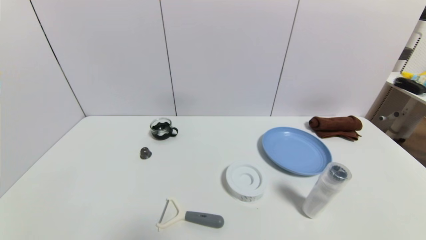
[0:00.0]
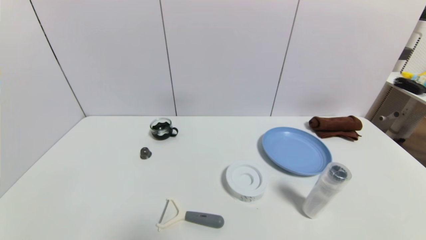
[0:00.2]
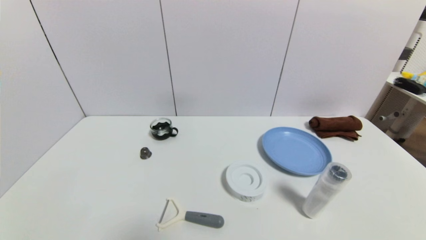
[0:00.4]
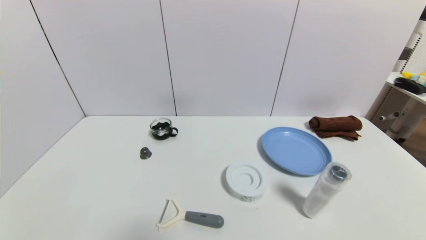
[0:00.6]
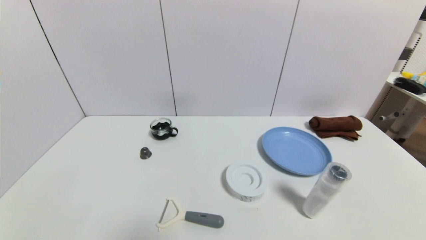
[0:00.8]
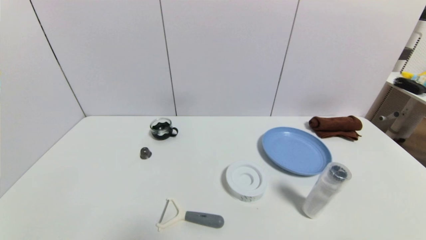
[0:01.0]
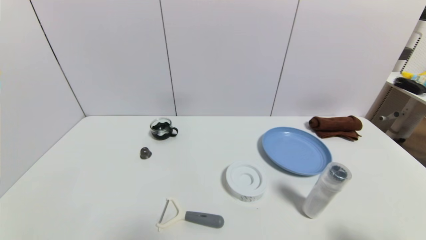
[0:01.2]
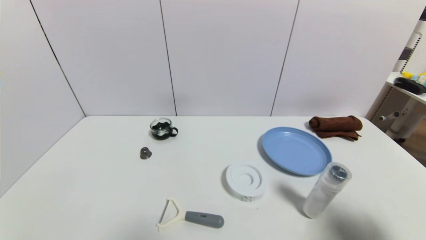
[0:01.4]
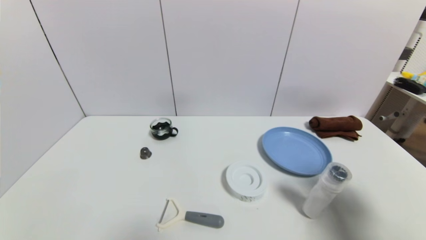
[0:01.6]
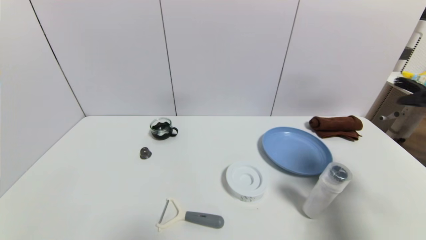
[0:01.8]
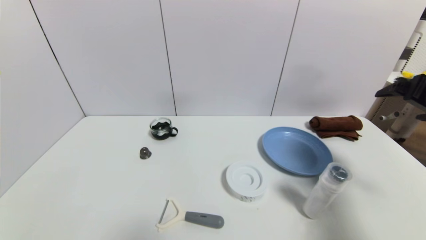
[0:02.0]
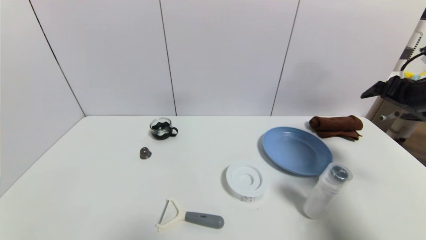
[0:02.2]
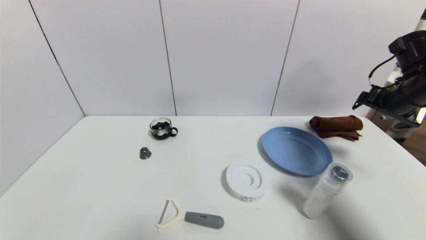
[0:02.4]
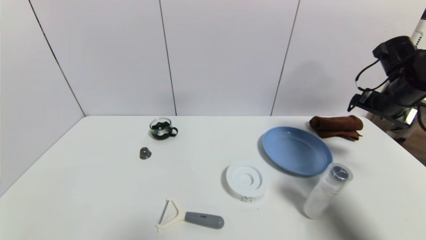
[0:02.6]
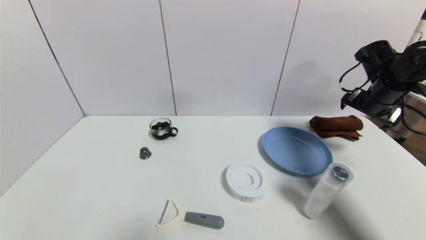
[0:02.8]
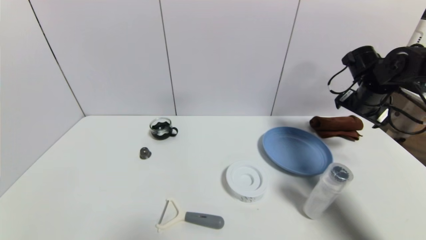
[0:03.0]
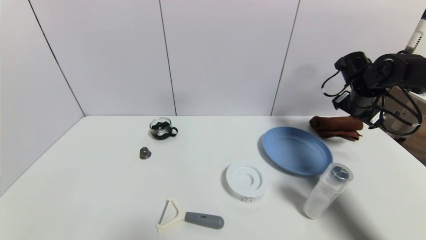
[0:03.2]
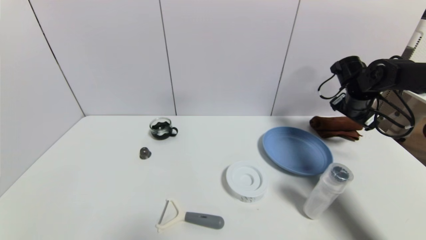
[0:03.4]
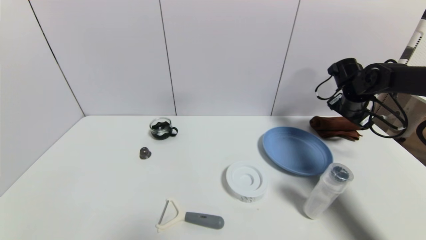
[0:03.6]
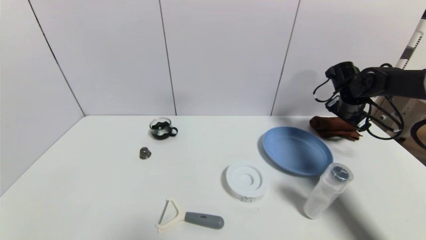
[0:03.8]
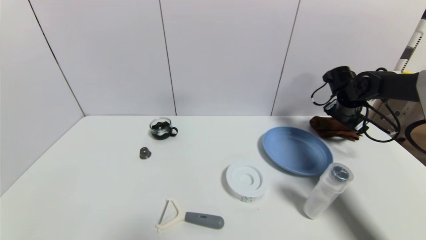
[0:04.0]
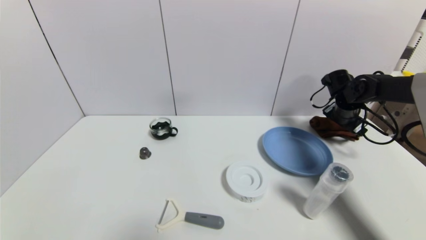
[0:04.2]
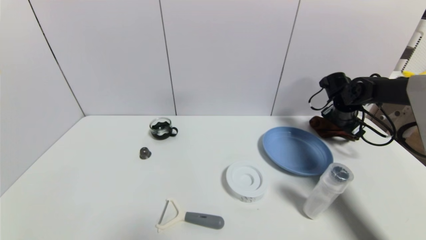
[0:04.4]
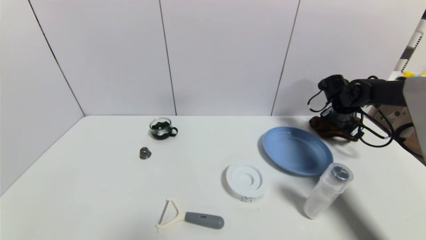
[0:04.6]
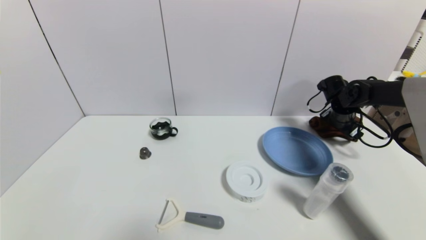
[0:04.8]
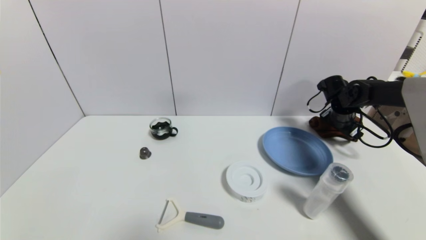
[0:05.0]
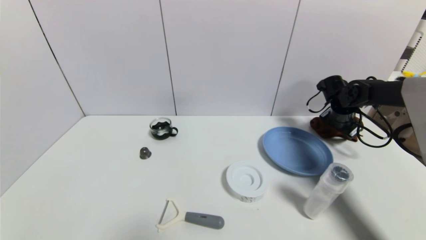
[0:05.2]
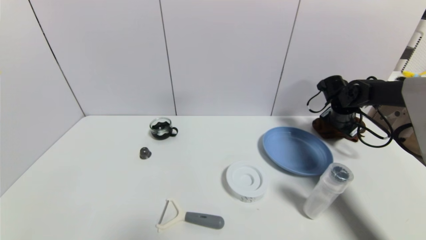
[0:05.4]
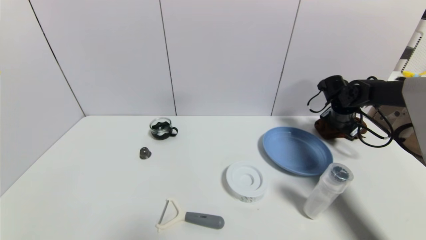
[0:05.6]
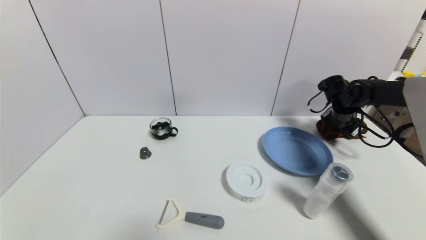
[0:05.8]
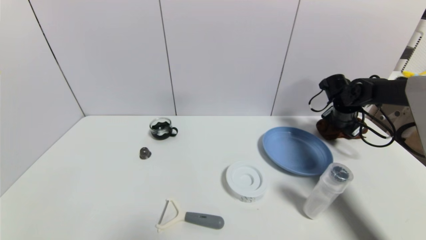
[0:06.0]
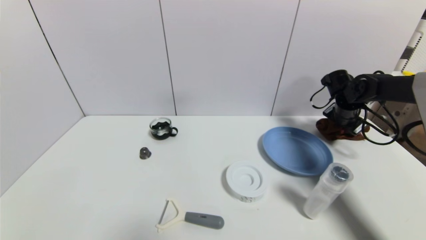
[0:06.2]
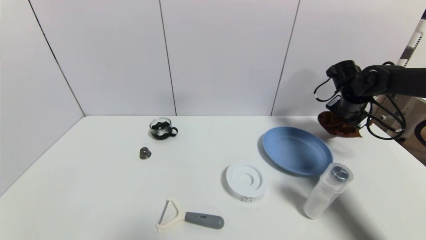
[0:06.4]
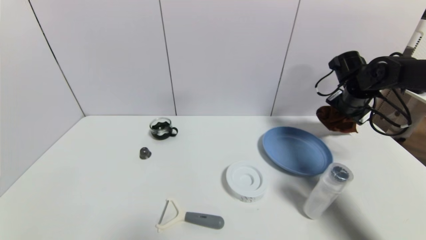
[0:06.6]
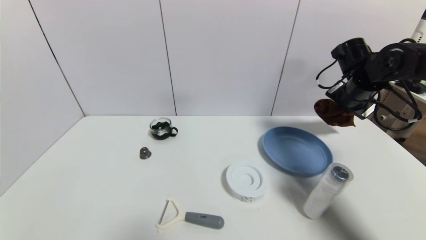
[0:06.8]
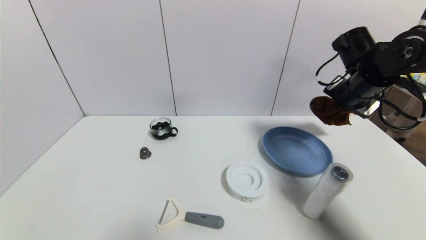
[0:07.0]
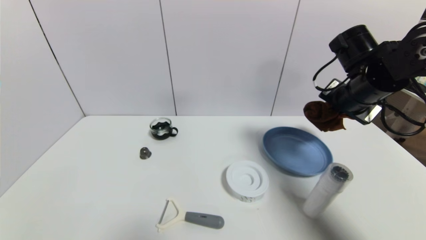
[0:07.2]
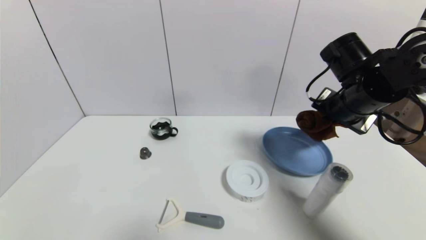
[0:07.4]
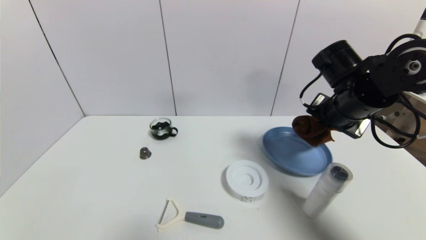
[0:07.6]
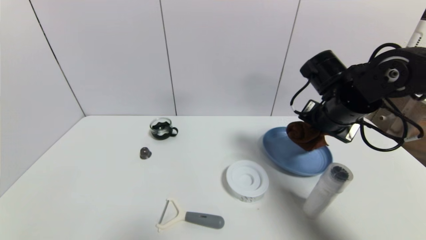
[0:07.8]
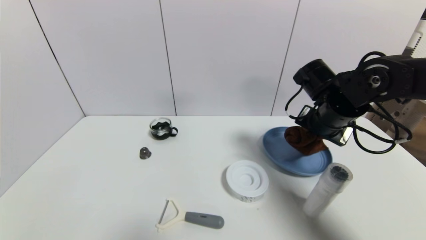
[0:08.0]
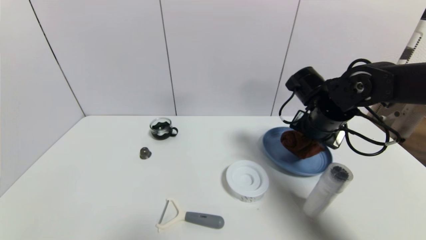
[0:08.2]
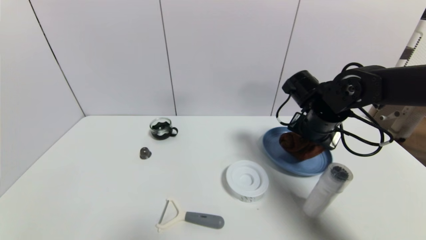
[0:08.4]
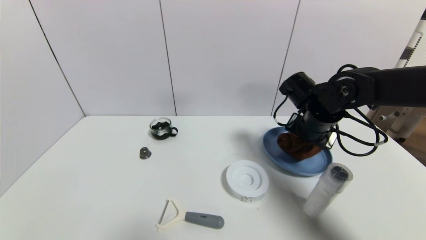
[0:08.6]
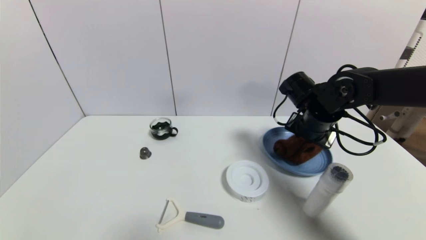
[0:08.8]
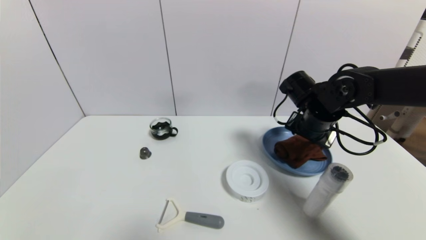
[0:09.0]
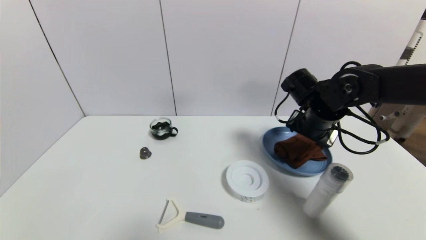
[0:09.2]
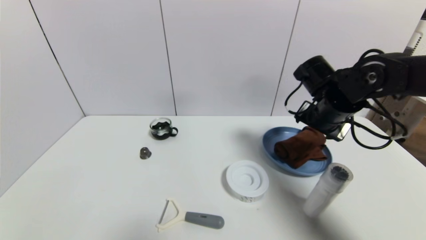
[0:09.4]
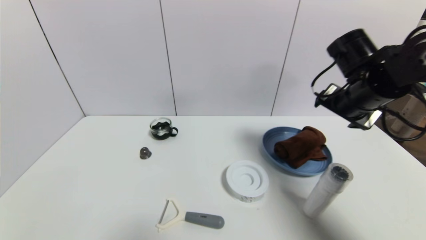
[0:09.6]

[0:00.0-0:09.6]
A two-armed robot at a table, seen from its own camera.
Task of the whole recording: use a gripper to pick the target object and place on the blue plate.
Step, 0:00.0 to 0:05.8: Grasp the brown towel with the right gripper.
0:00.0 to 0:01.6: The right gripper travels upward and forward by roughly 25 cm.
0:01.6 to 0:03.2: The right gripper heads forward, covering approximately 30 cm.
0:03.2 to 0:04.8: The right gripper heads downward, covering roughly 5 cm.
0:04.8 to 0:06.4: The right gripper goes some 5 cm upward, and closes its fingers.
0:06.4 to 0:08.0: The right gripper heads to the left and backward, covering roughly 15 cm.
0:08.0 to 0:09.6: The right gripper heads upward, covering some 5 cm, and opens.

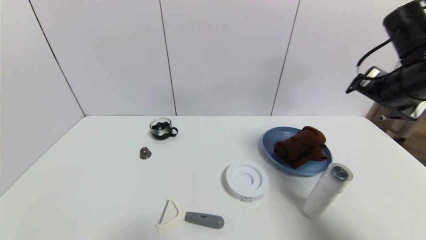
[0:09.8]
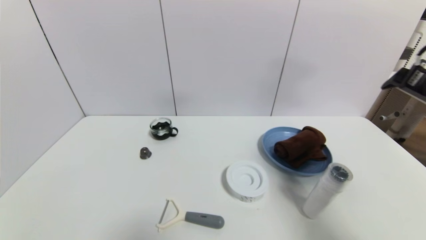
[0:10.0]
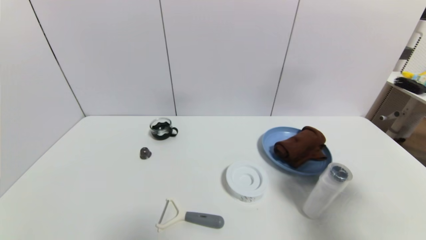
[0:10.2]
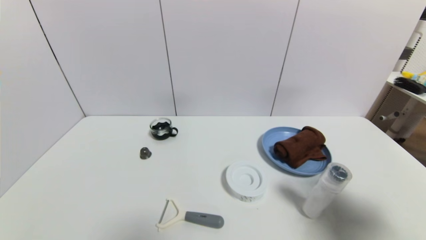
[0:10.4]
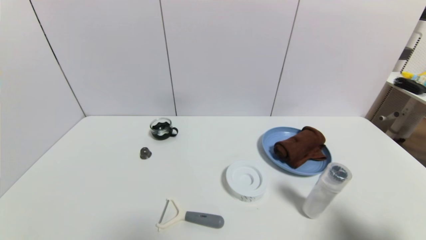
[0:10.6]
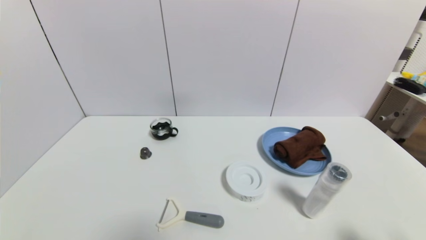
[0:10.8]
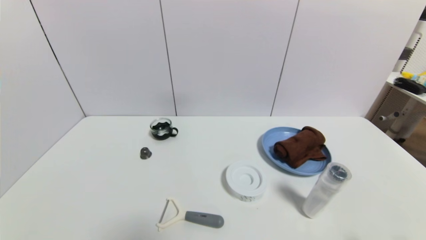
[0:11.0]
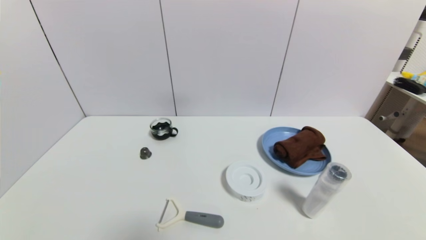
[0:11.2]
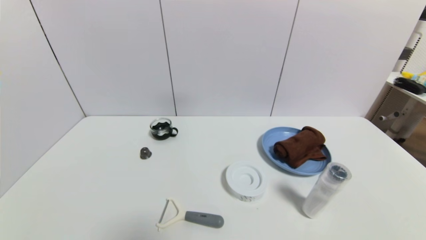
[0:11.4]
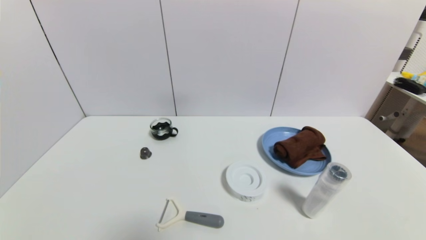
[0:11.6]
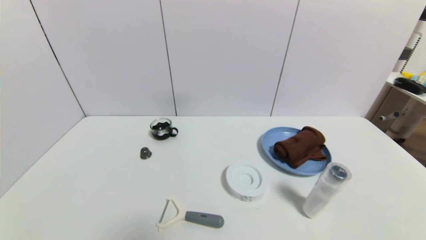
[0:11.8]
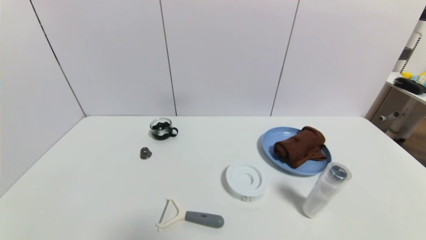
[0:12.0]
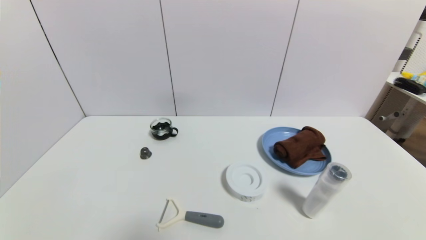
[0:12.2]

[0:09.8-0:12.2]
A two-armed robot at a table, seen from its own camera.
Task of the whole recording: use a gripper to pick the target object and place on the blue plate.
0:09.8 to 0:11.0: The right gripper is displaced backward and downward by approximately 30 cm.

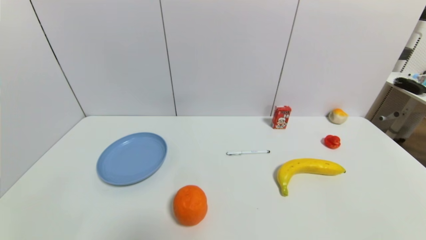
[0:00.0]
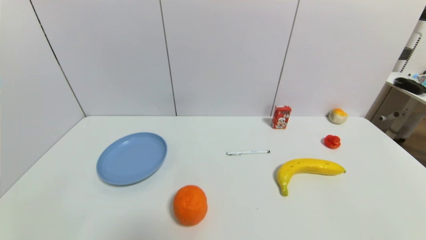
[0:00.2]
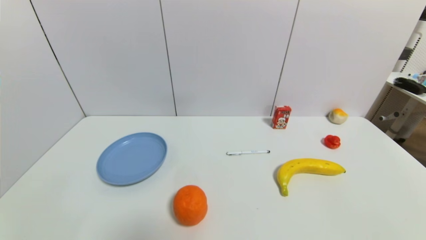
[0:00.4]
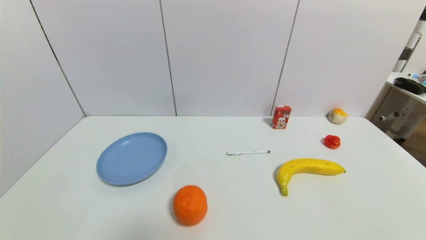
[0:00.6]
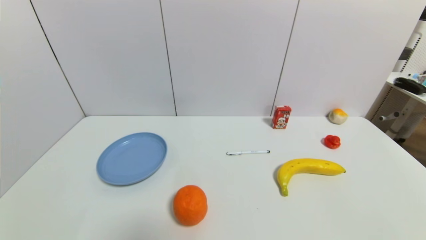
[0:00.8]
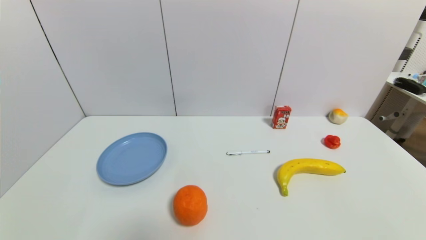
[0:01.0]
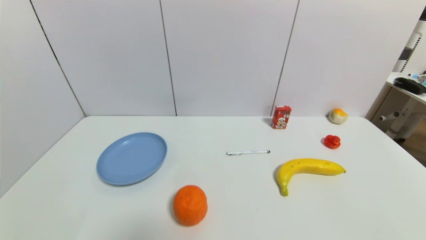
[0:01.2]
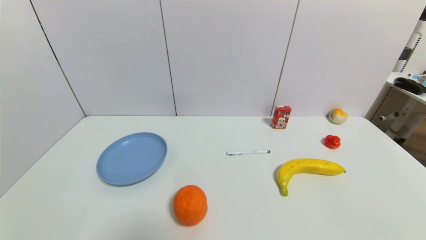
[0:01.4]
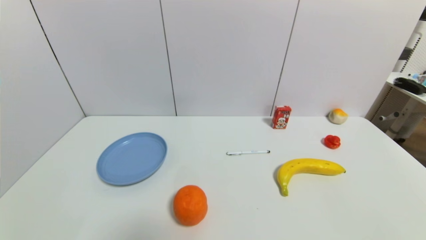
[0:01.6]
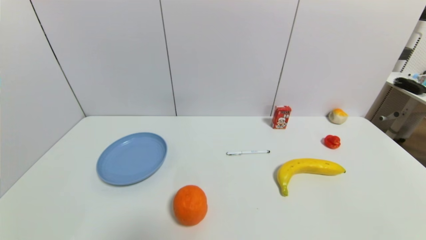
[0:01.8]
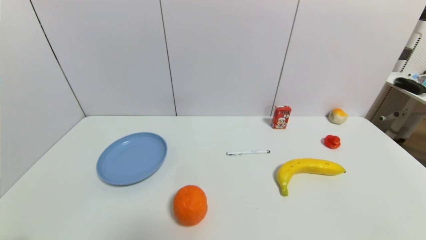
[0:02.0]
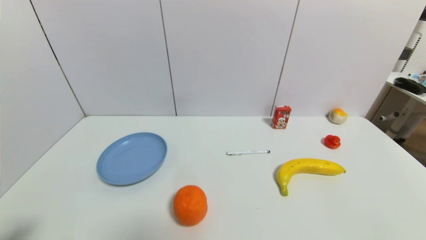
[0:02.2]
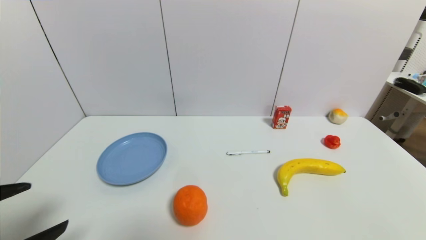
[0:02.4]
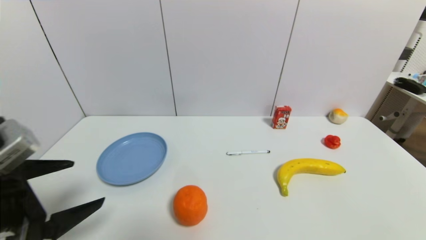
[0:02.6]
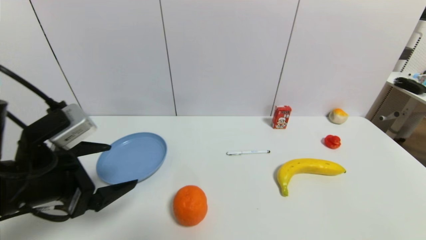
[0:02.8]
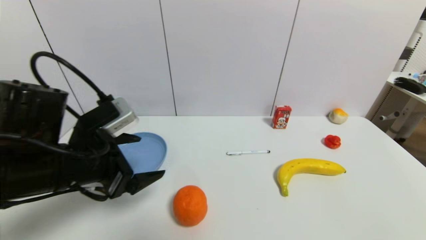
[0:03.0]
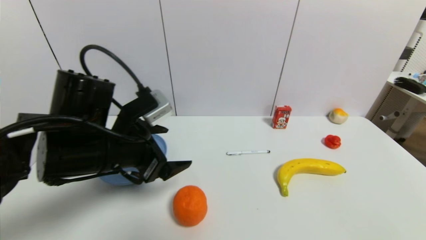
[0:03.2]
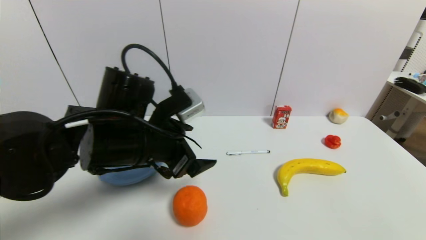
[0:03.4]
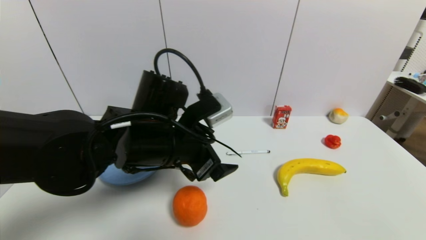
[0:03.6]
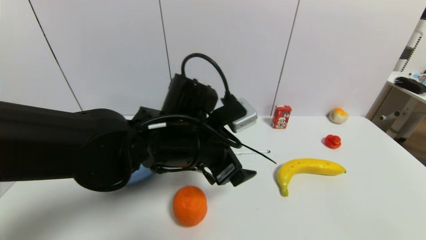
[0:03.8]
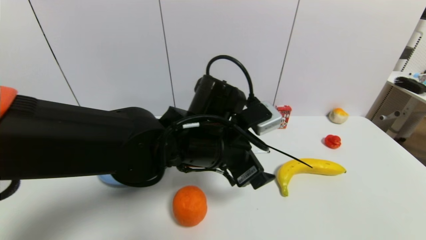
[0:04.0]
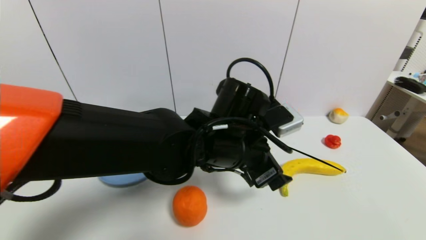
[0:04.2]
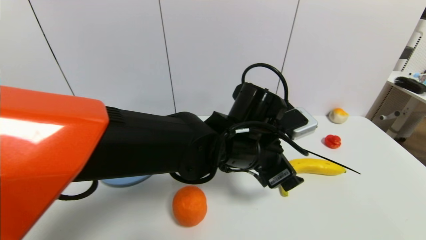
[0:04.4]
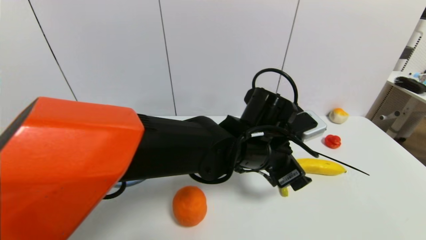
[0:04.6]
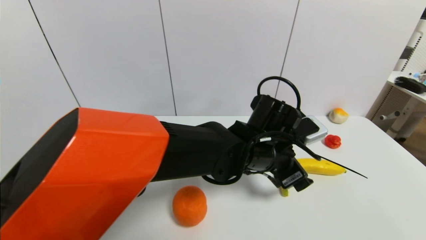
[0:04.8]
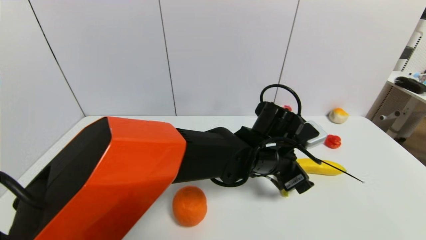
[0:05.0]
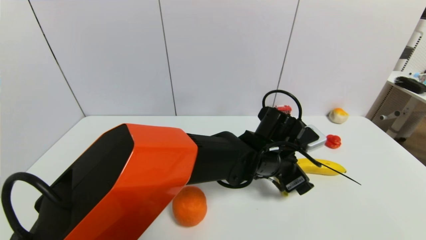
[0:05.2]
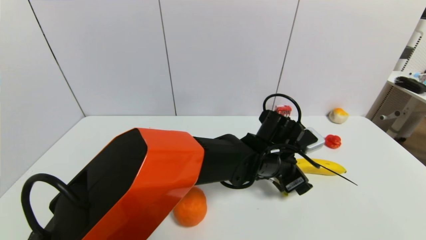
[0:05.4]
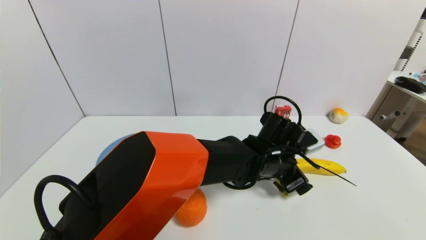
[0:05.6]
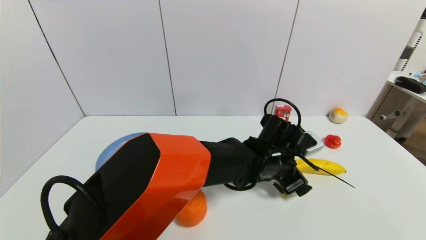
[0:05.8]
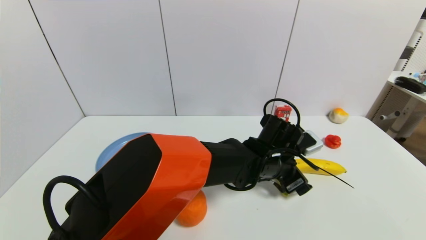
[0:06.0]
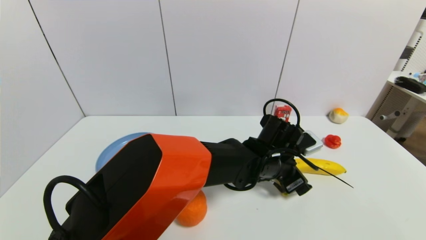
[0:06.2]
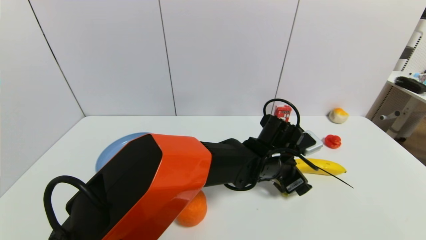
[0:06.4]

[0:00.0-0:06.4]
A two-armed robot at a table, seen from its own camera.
Task of the whole recording: use a gripper to pick the target object and place on the blue plate.
0:00.0 to 0:01.6: The two grippers keep their place.
0:01.6 to 0:03.2: The left gripper is displaced forward, upward and to the right by some 30 cm.
0:03.2 to 0:04.8: The left gripper moves to the right, approximately 25 cm.
0:04.8 to 0:06.4: The left gripper moves downward, roughly 5 cm.
